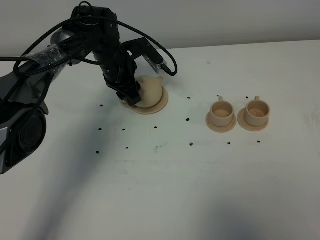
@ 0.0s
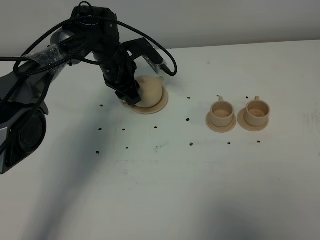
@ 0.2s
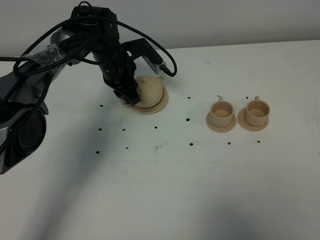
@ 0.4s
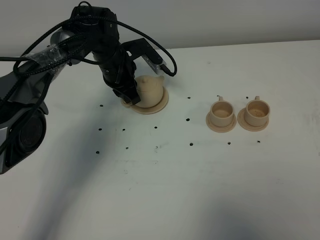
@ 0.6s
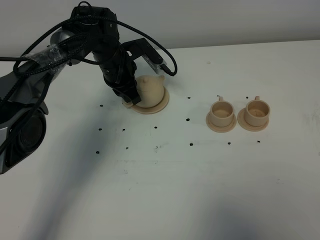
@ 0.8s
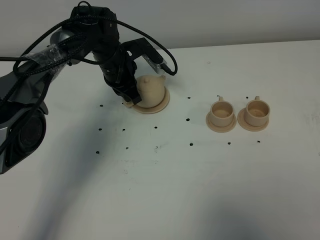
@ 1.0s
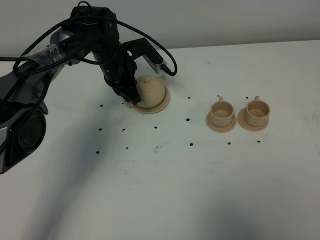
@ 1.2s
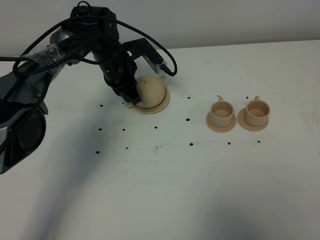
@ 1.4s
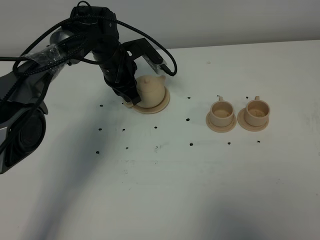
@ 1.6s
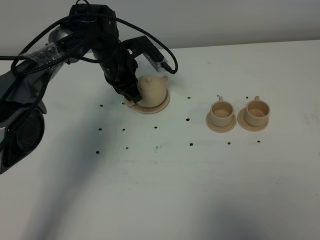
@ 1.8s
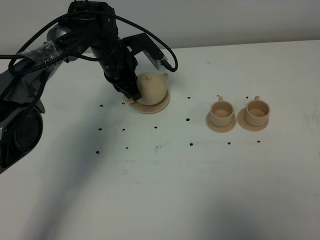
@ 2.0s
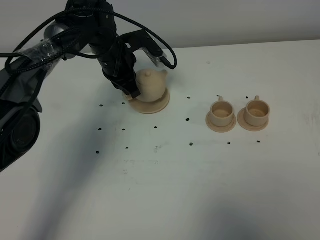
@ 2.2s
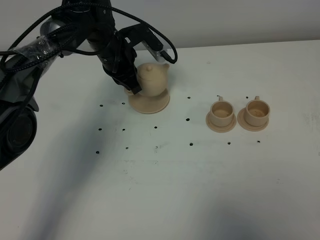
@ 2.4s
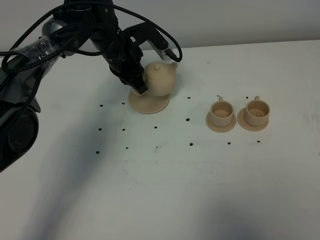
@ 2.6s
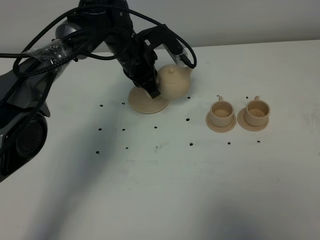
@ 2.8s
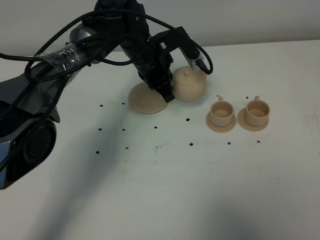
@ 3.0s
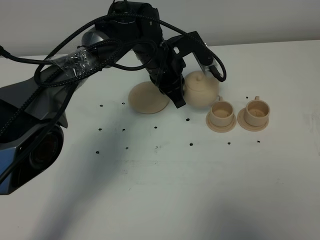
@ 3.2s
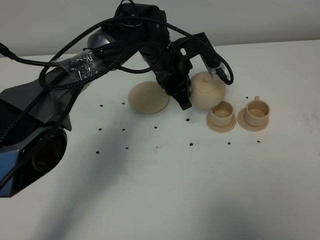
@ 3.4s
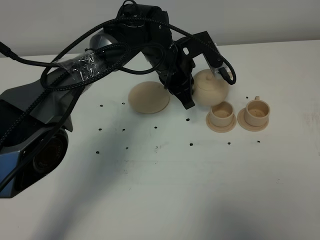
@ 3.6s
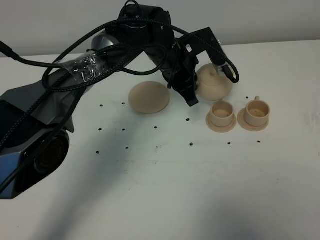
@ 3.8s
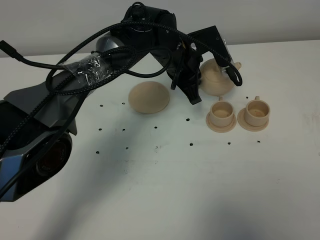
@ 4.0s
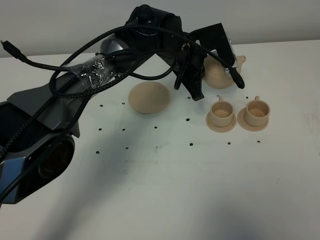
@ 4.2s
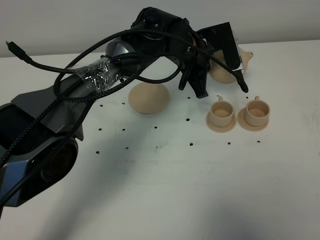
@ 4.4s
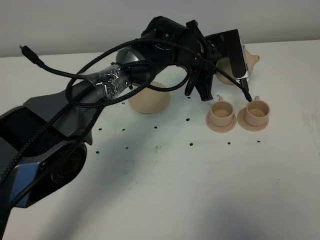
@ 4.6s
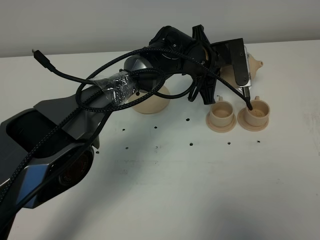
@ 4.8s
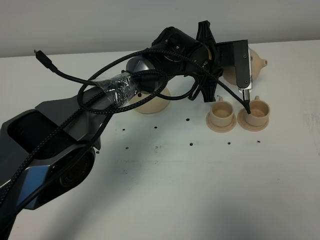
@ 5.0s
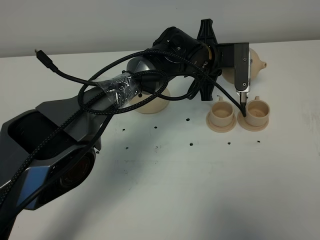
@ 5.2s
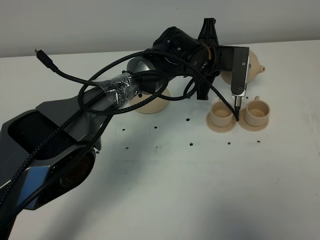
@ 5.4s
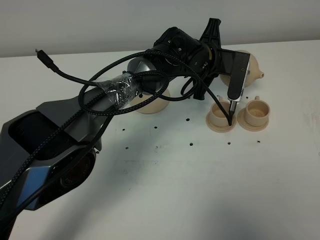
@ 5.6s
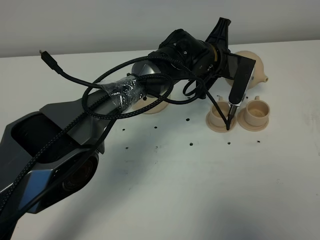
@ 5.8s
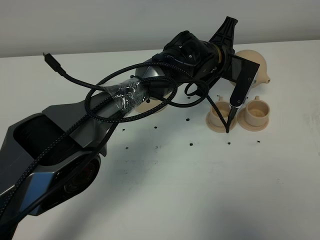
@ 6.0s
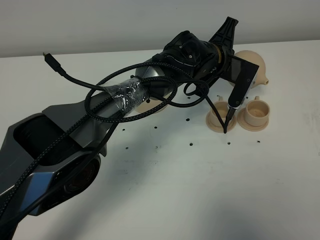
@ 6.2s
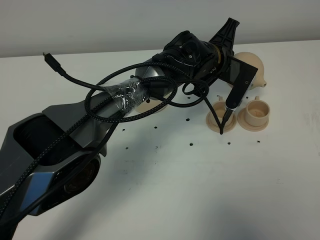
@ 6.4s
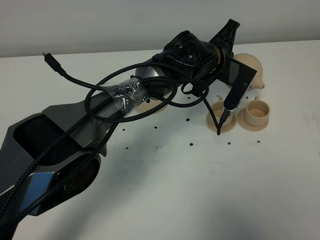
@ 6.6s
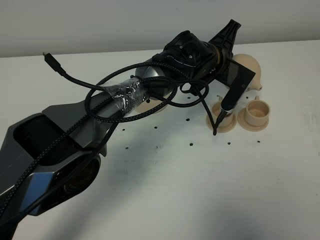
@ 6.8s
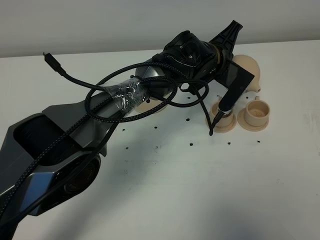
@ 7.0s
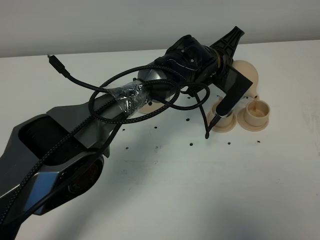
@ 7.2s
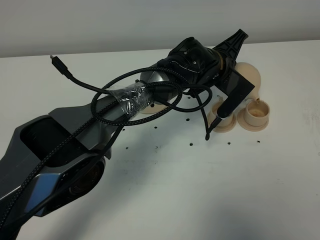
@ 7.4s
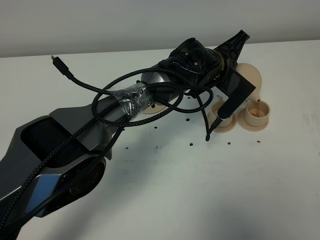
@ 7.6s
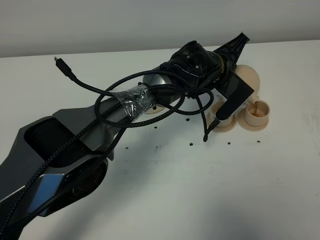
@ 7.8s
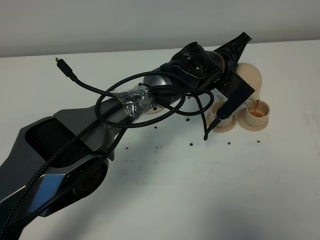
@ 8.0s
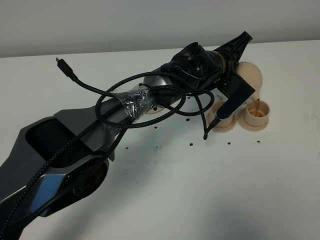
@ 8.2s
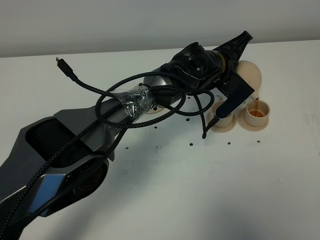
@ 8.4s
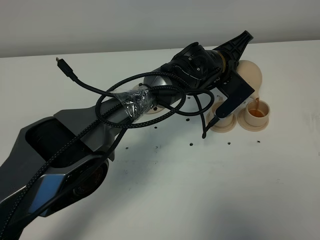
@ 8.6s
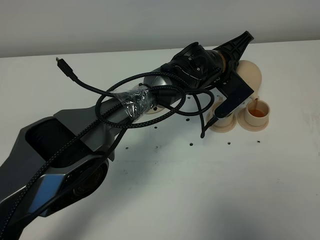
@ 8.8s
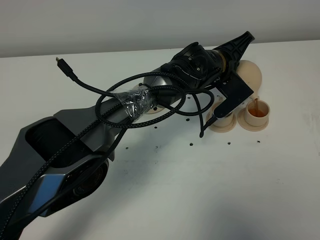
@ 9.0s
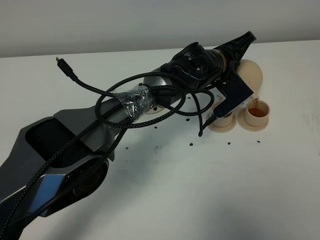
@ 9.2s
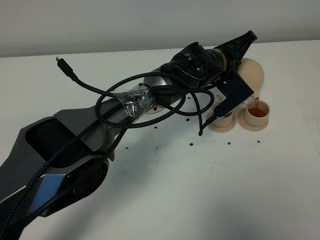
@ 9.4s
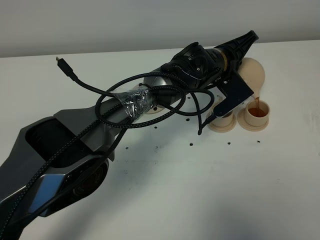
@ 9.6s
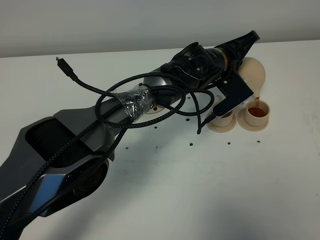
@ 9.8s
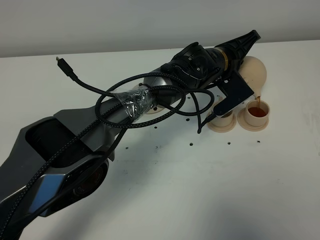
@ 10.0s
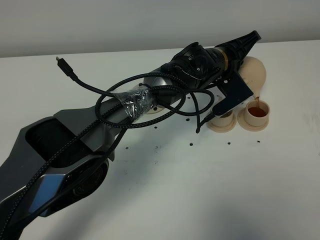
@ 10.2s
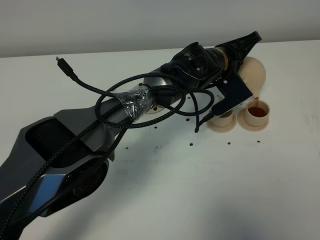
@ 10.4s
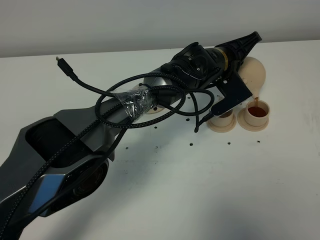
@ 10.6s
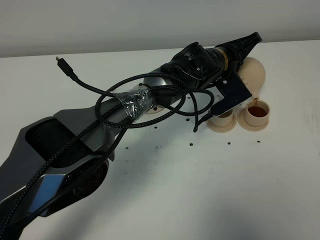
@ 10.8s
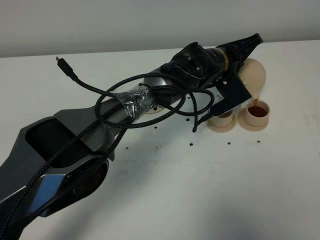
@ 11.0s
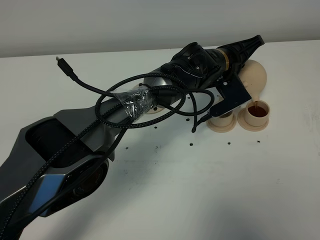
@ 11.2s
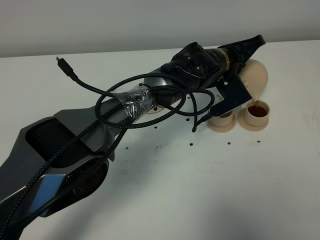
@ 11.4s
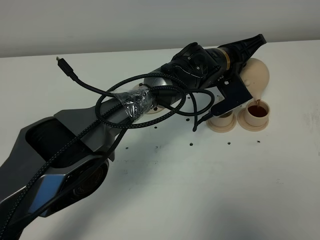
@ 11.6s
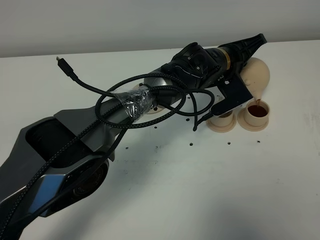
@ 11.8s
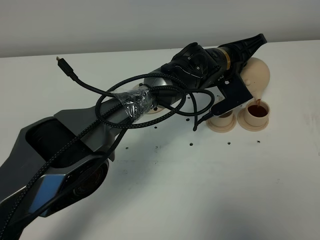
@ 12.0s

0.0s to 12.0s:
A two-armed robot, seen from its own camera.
Task of the whole recording: grasp the brown teapot and pour the tea into the two brown teacups one by one, put the brown teapot back in its original place.
Step, 0.0s to 2.0s: Pick up the teapot with the left gripper.
0.0s to 1.6s: The left gripper closes its fingers.
1.6s to 3.0s: The left gripper moves to the right, roughly 10 cm.
3.0s to 4.4s: The left gripper goes roughly 5 cm to the right.
6.0s to 7.6s: The grippers move only a little.
7.6s to 10.4s: There are only small adjustments of the grippers.
10.4s to 12.0s: The two grippers keep their place.

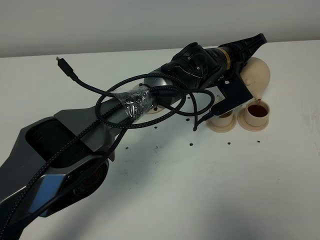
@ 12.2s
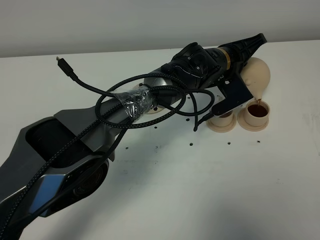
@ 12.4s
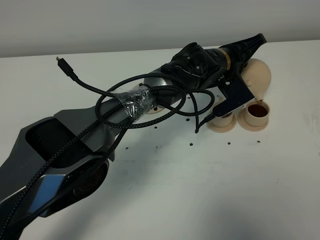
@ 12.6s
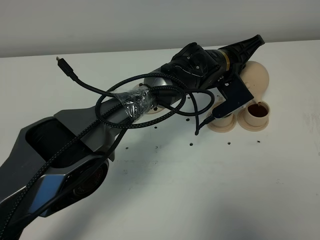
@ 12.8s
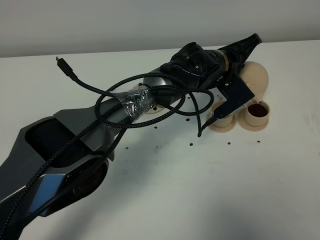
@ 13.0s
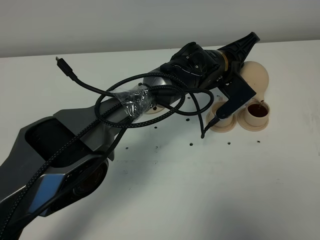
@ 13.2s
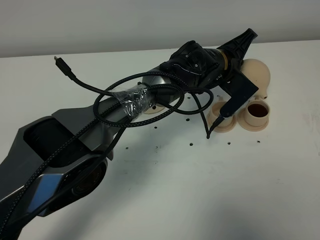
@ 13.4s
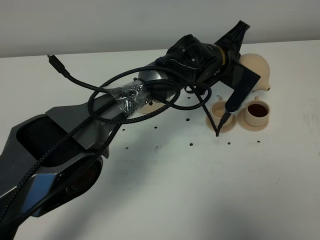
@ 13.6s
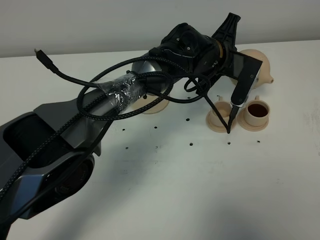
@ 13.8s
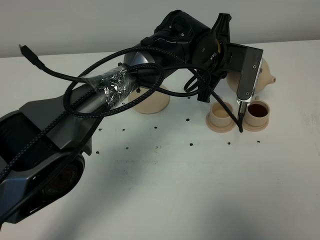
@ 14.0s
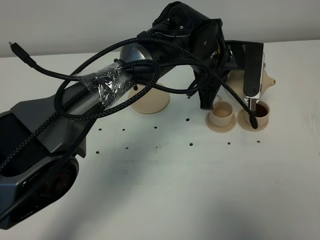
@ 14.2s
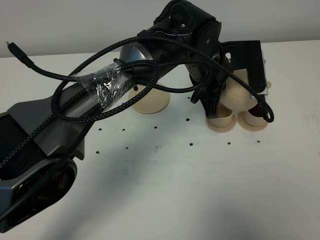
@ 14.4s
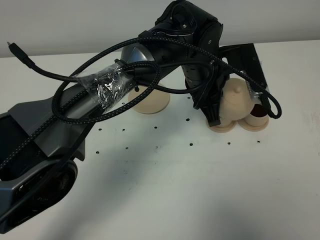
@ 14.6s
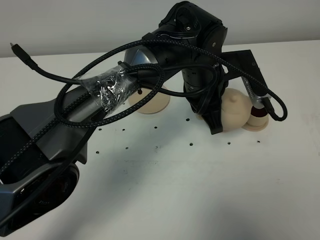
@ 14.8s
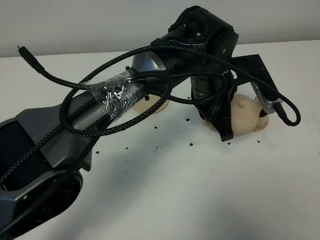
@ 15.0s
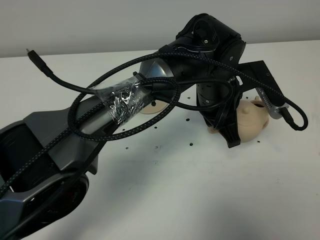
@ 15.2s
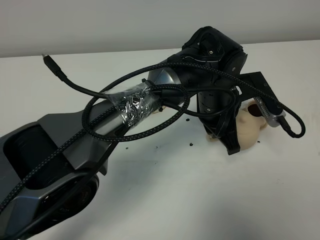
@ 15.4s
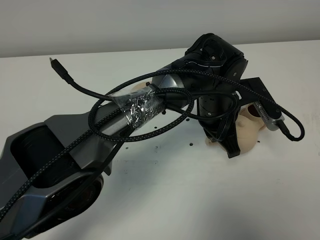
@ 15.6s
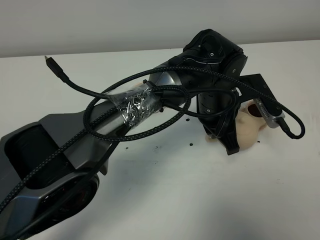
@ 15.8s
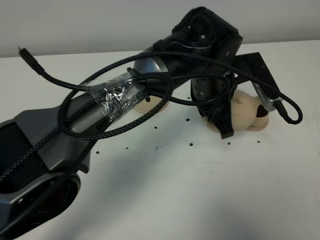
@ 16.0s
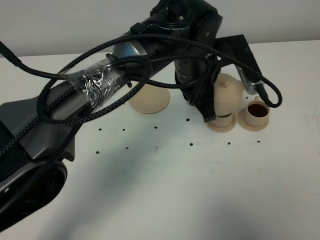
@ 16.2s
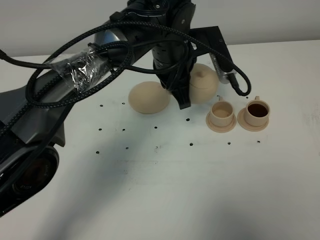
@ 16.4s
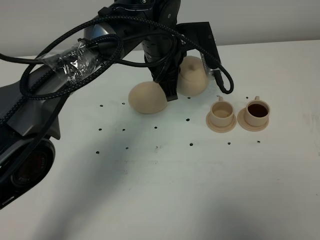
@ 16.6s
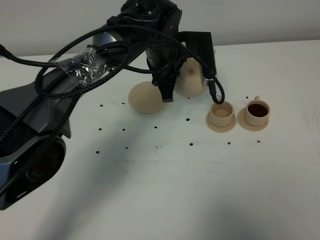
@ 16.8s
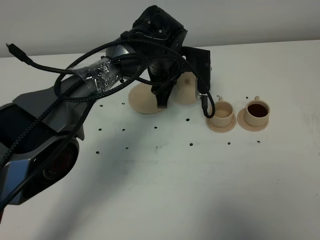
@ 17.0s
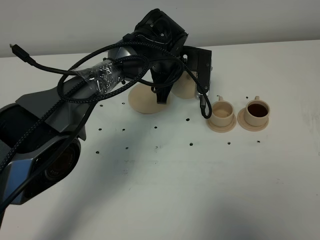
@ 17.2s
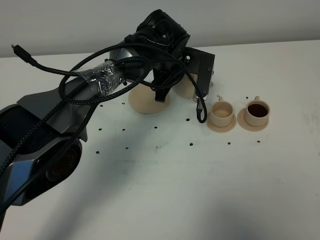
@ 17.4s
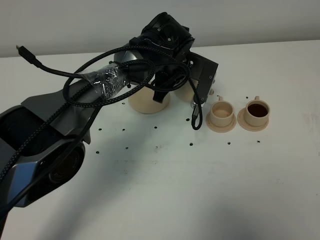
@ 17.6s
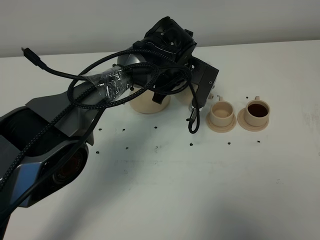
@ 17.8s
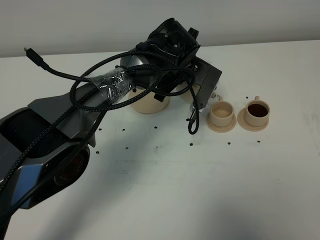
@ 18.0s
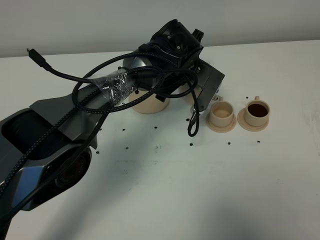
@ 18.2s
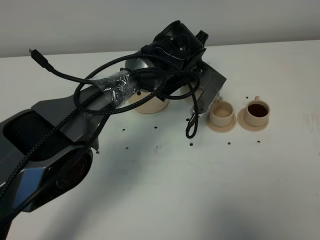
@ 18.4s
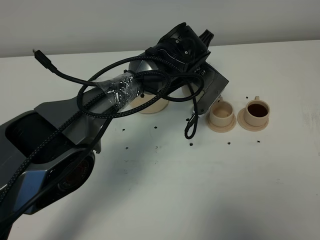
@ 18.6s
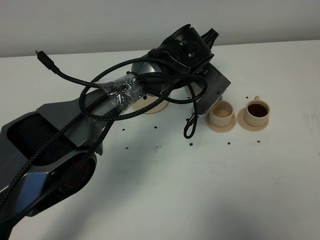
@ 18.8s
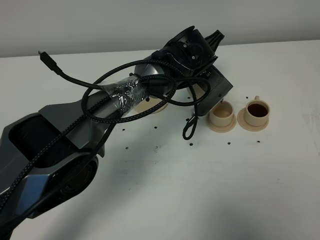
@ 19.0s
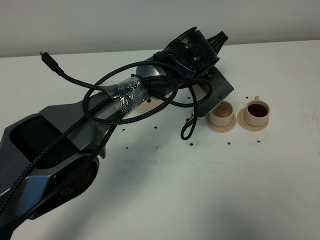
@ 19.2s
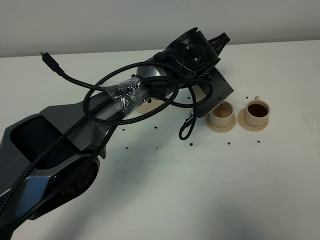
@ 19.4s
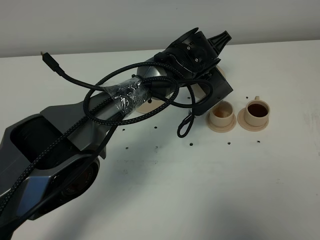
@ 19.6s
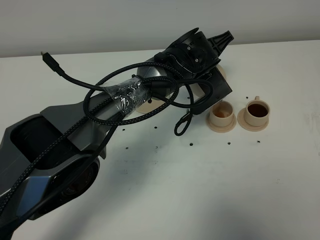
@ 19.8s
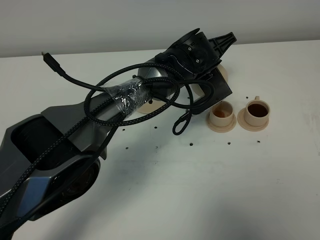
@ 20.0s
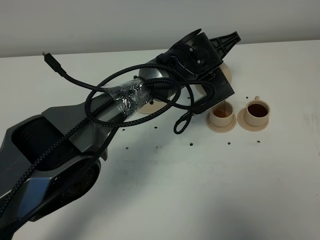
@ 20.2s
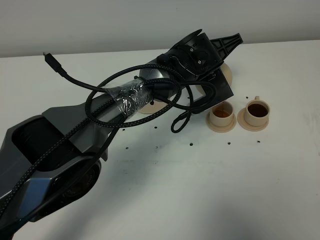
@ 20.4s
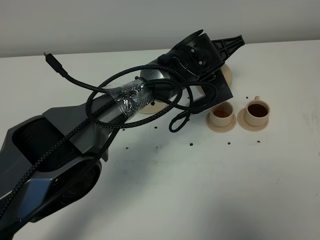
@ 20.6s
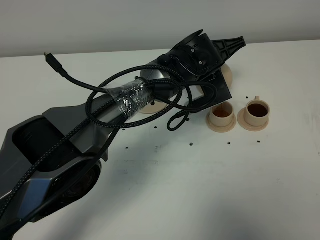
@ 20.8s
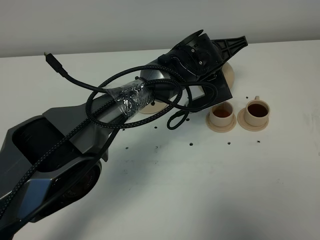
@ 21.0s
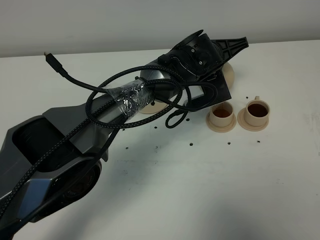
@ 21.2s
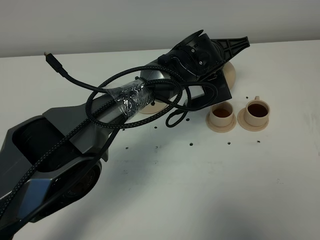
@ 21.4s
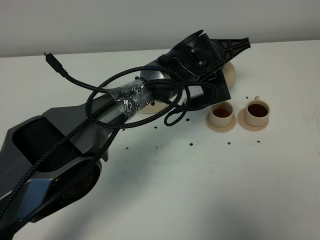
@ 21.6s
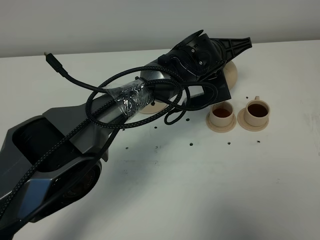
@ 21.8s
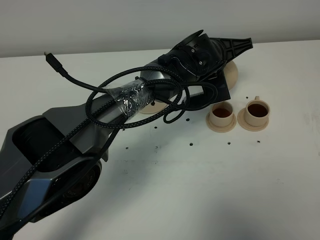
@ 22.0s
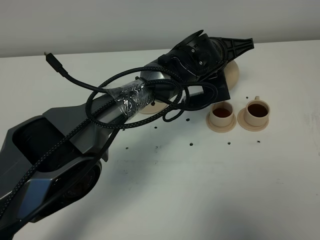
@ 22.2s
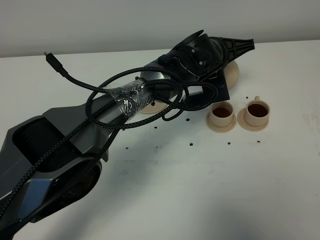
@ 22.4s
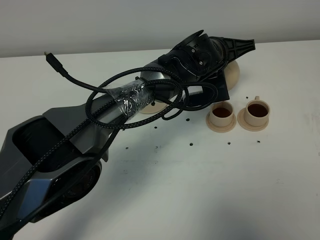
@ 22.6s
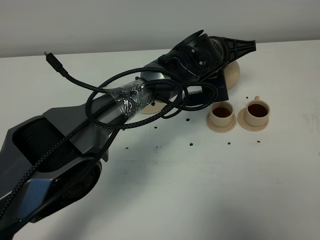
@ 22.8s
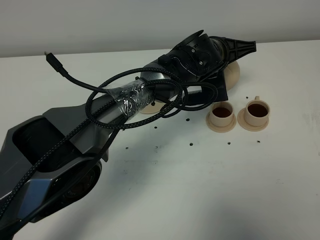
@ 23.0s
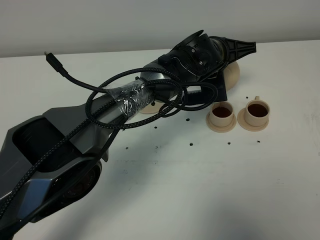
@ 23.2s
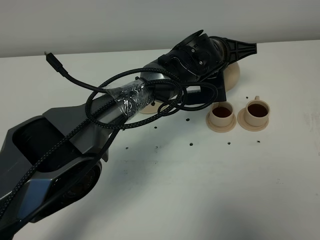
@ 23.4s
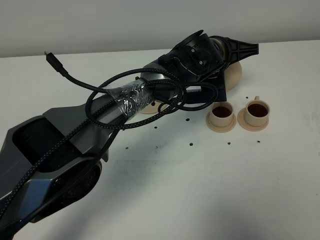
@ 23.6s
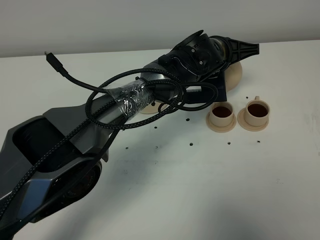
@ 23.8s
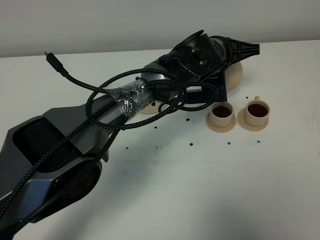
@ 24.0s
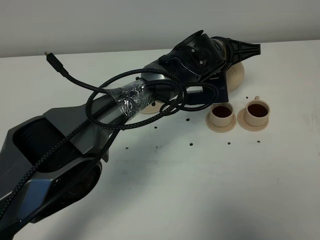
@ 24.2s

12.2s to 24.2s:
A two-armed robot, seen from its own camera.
Task of the whole recording: grasp the brown teapot and pour the tea into the two brown teacups one by one, put the brown teapot back in its original place.
13.8s to 15.2s: The left gripper heads backward, covering roughly 10 cm.
15.2s to 16.6s: The left gripper heads to the left and forward, covering roughly 10 cm.
16.6s to 18.2s: The left gripper is displaced downward by approximately 5 cm.
19.8s to 21.2s: The grippers move only a little.
21.2s to 24.2s: The grippers make only small movements.
